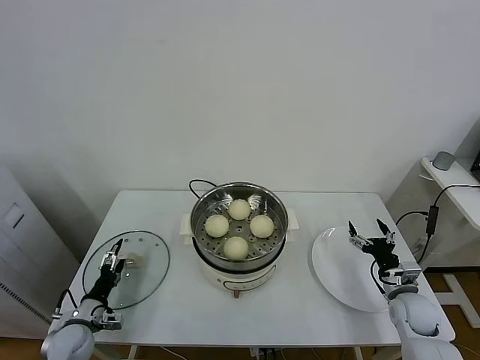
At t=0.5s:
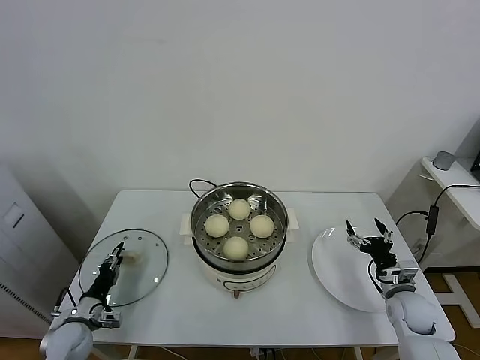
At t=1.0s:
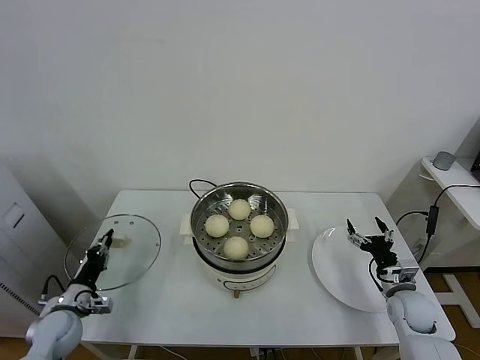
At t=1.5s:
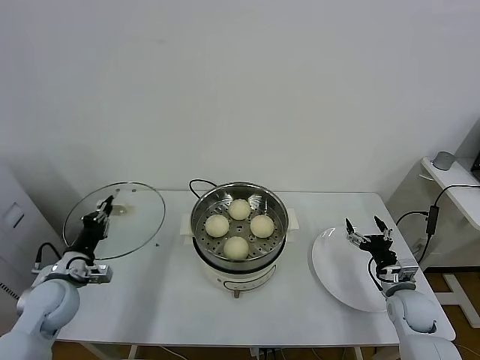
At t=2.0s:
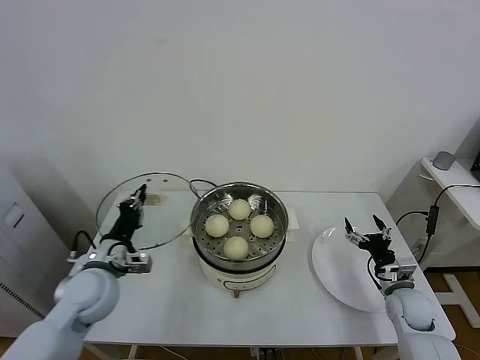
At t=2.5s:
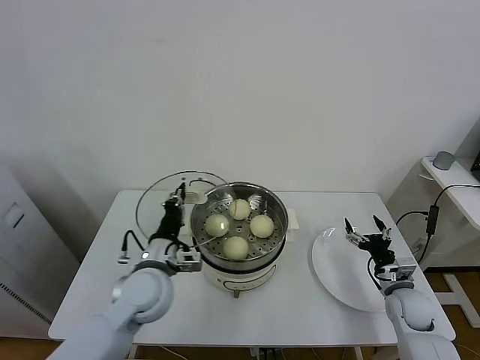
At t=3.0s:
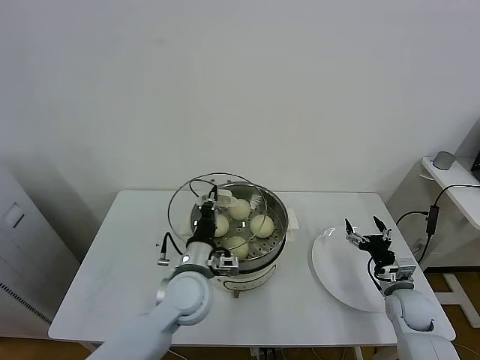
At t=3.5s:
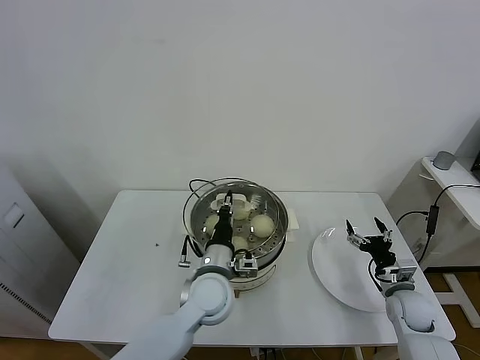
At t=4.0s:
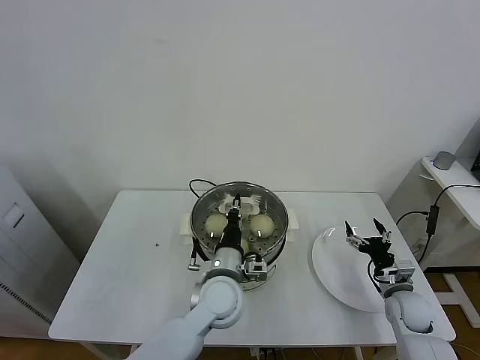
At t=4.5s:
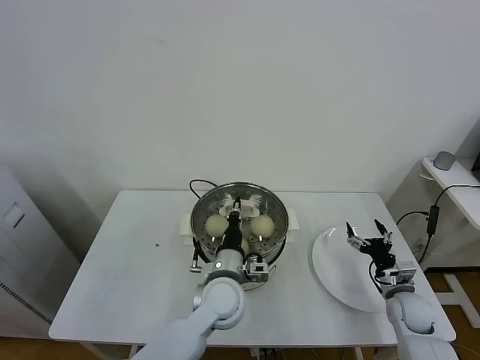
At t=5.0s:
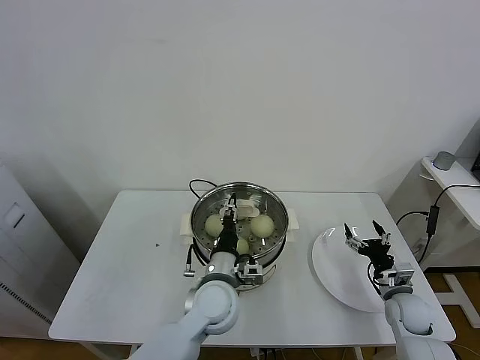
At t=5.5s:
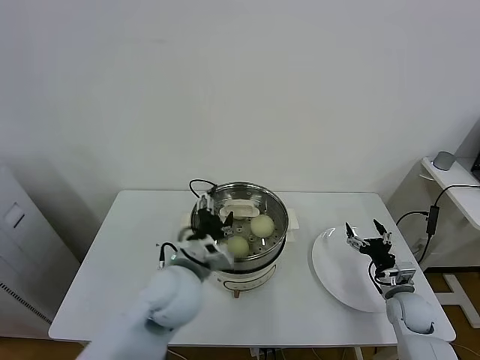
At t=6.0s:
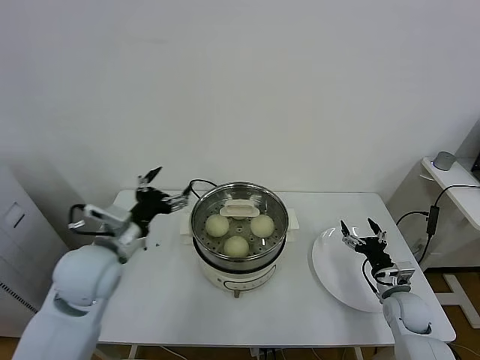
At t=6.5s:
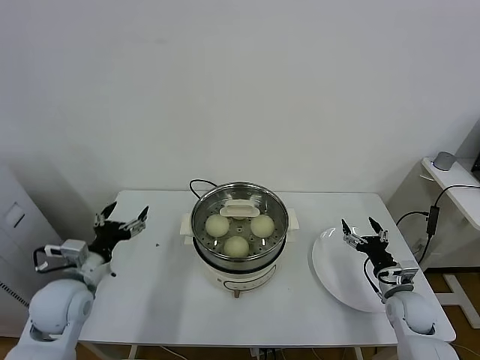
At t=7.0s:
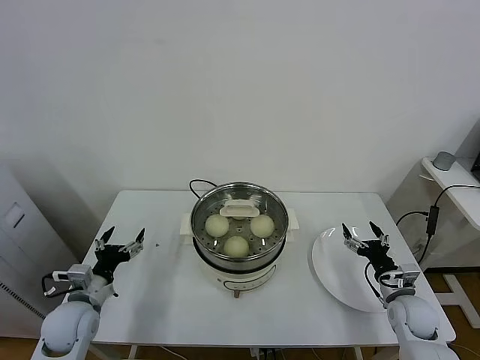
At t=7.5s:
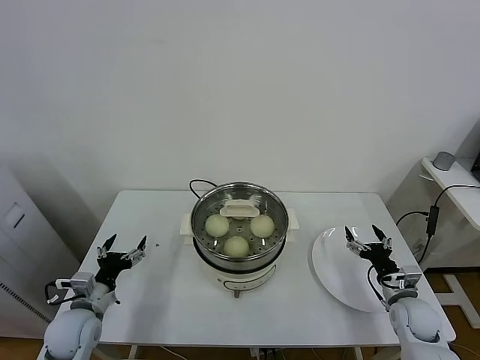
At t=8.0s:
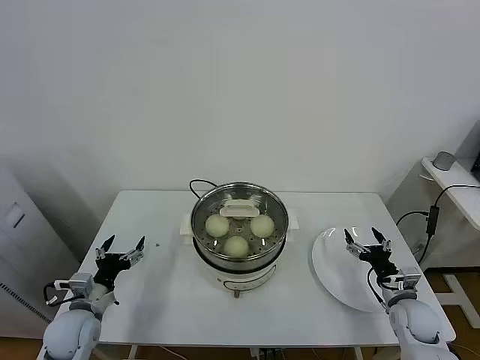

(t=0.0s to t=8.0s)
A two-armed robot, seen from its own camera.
Task of the whole recording: take steamed baozi put them in steamer.
Step, t=1.0s - t=4.5s: Place the pot lid on the steamer with left gripper.
t=0.0s - t=2.0s: The left gripper shifts approximately 20 cm upward and to the right, and closes up.
t=2.0s - t=4.0s: The left gripper heads to the right, covering some 25 cm.
t=4.0s - t=6.0s: The left gripper heads to the left and upward, covering about 25 cm, and opens up.
t=6.0s - t=8.0s: The left gripper shifts approximately 20 cm downward and to the left.
